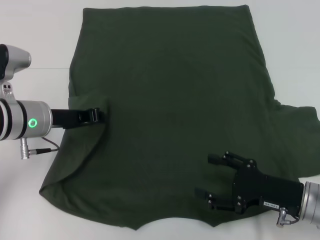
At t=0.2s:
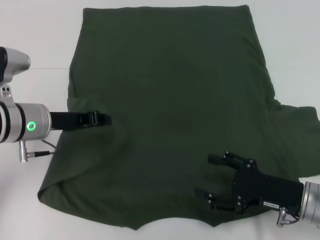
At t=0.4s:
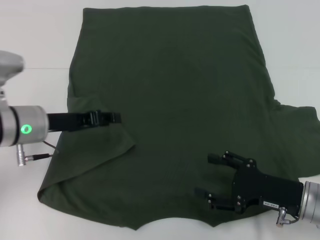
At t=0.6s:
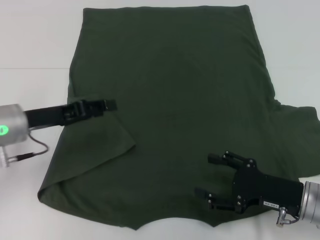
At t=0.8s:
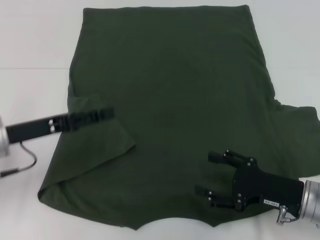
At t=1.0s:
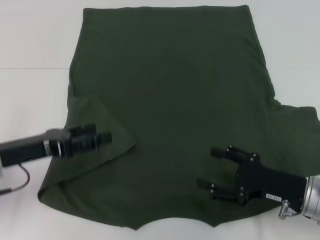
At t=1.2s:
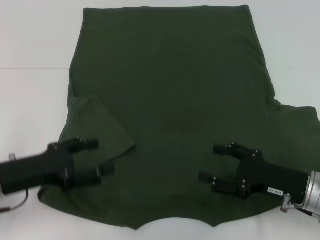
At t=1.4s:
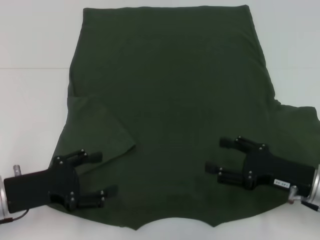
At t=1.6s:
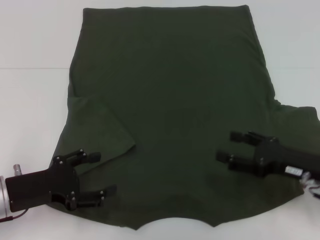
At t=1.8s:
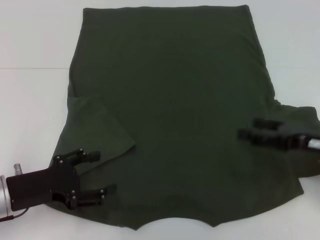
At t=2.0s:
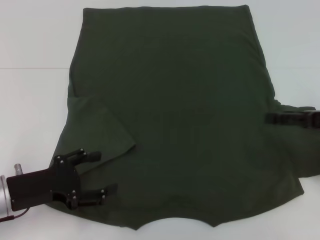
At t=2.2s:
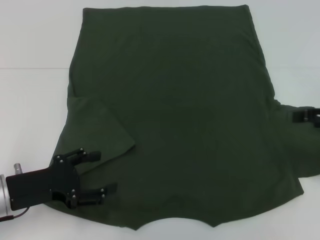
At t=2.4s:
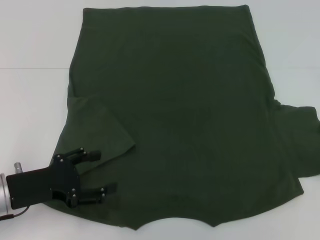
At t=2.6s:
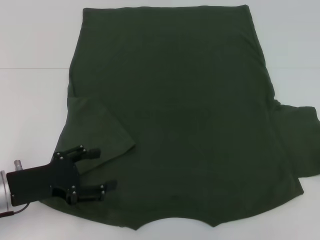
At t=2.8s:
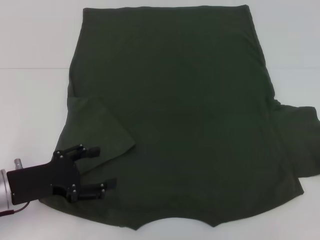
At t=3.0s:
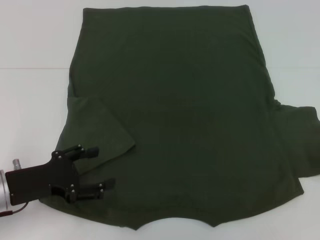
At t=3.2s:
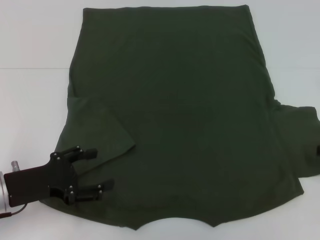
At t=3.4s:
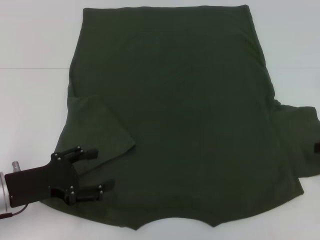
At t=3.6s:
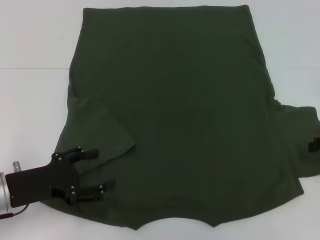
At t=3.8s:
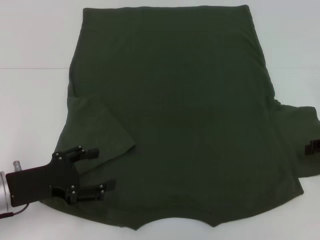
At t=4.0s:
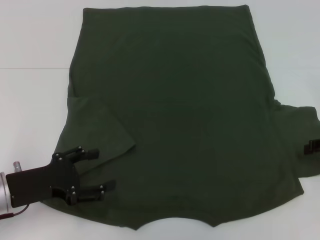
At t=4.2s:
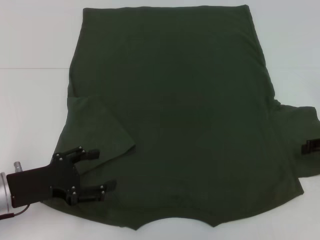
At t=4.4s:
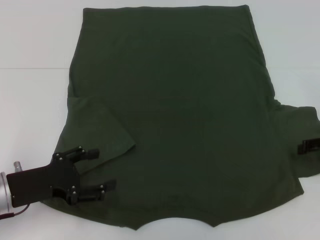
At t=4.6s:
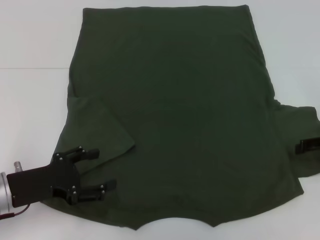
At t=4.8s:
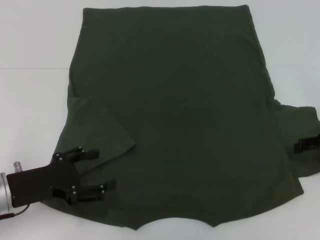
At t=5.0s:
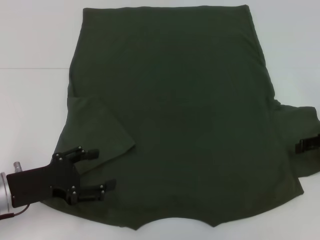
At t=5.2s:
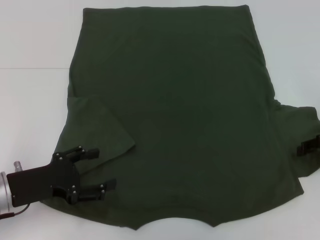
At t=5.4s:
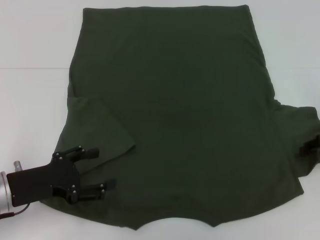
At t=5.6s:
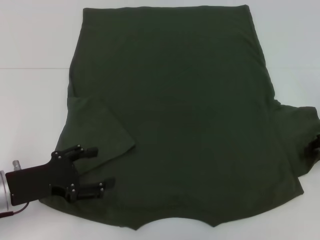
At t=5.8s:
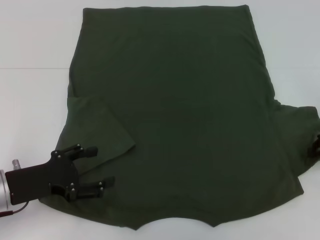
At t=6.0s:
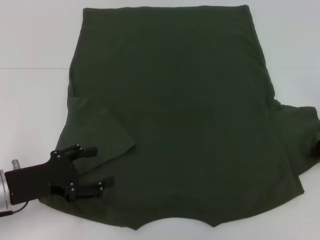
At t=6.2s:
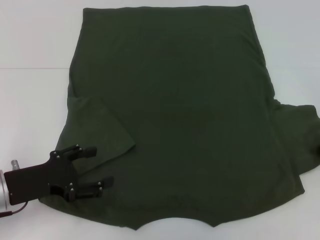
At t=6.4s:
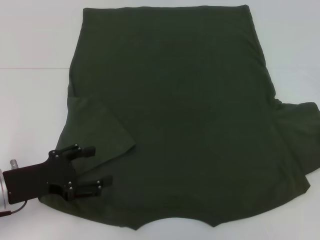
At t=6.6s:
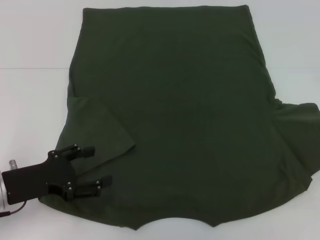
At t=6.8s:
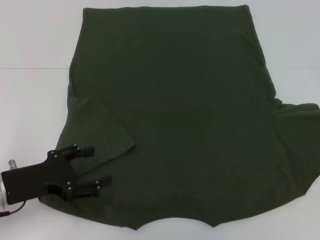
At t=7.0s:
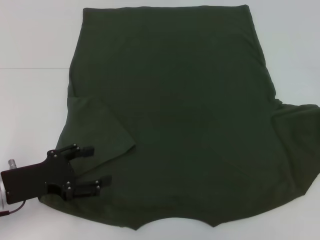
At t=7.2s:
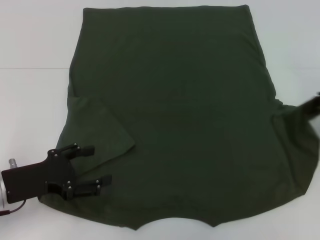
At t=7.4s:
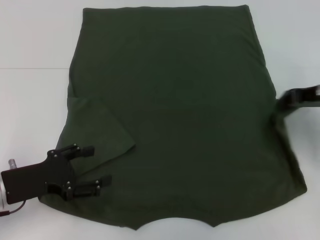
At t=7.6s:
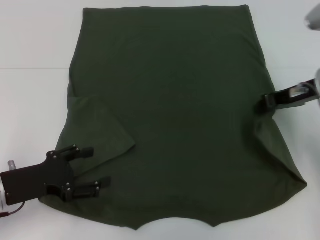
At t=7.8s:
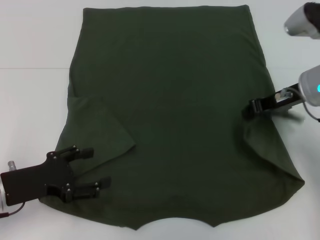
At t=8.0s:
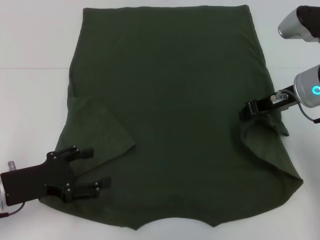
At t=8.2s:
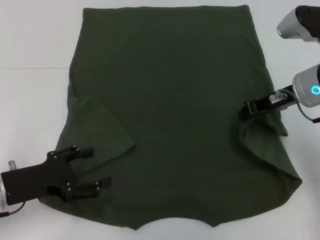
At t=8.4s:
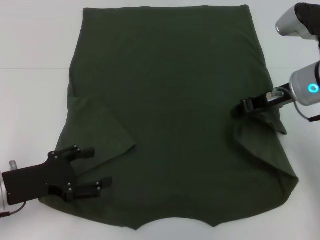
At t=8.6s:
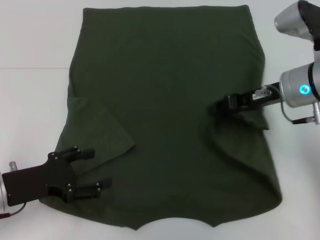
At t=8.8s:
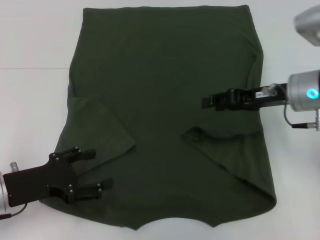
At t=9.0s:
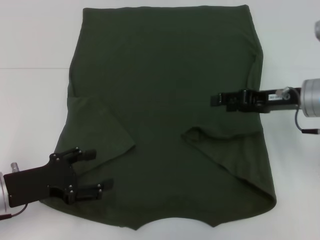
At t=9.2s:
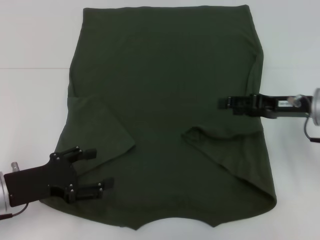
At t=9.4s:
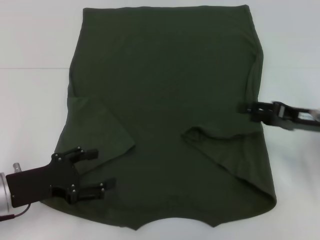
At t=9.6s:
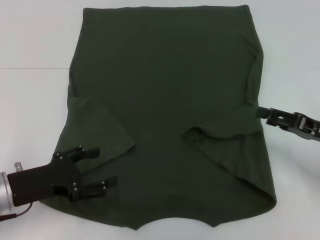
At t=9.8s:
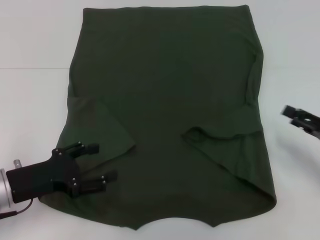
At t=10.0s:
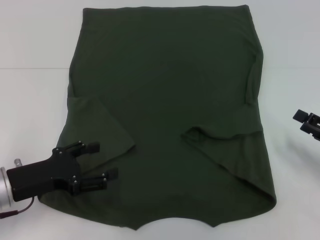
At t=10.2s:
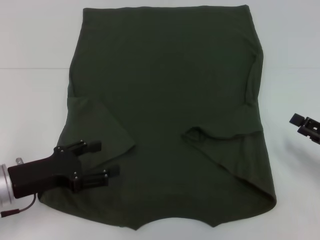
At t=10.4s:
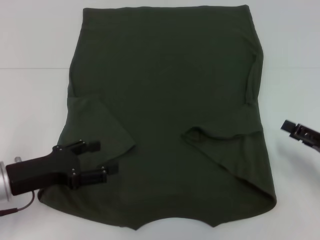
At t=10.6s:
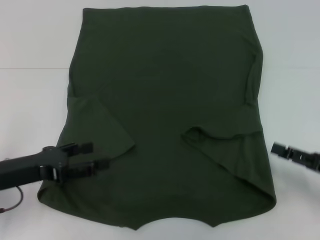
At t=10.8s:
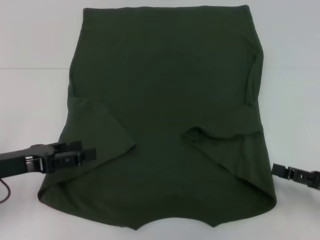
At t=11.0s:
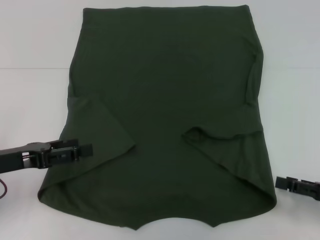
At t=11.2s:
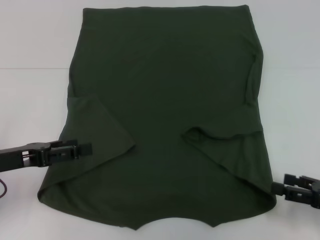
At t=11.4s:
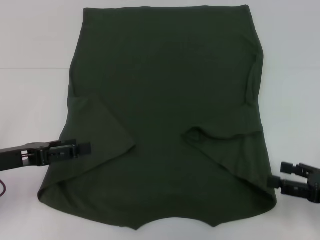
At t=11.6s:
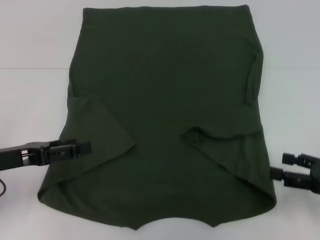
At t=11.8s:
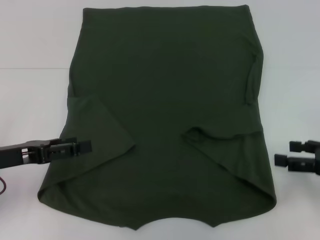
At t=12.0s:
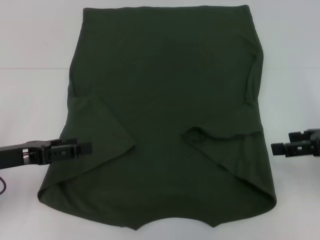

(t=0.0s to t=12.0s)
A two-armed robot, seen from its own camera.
Step, t=0.4s - t=8.8s: Fold the bottom right sleeve with your right hand.
t=0.0s - t=1.6s: The left gripper goes roughly 10 cm backward, and opens.
t=1.6s - t=3.0s: The right gripper moves to the right and upward, about 15 cm.
t=3.0s - t=4.4s: The grippers move only a little.
t=6.0s - t=7.6s: The right gripper moves to the left and upward, about 10 cm.
t=7.6s - t=9.0s: The right gripper opens up.
t=9.0s - t=10.4s: The right gripper is displaced backward, to the right and downward by roughly 15 cm.
t=10.4s - t=12.0s: The left gripper shifts by about 5 cm; the right gripper is displaced upward by roughly 10 cm.

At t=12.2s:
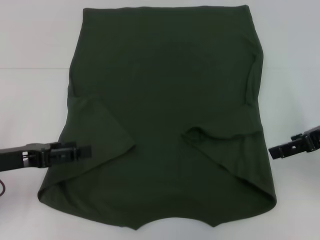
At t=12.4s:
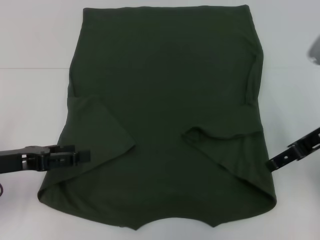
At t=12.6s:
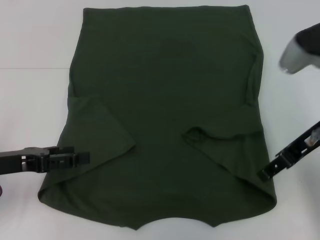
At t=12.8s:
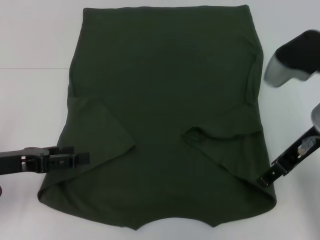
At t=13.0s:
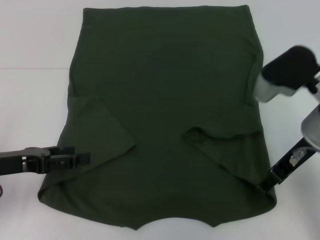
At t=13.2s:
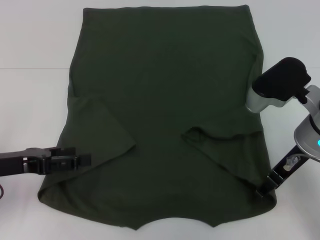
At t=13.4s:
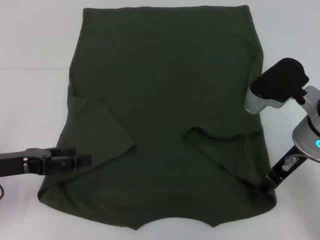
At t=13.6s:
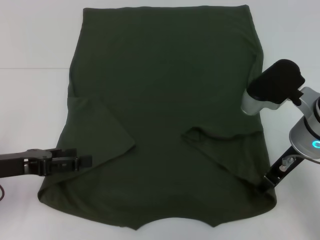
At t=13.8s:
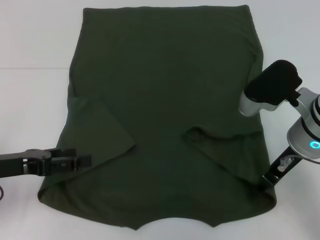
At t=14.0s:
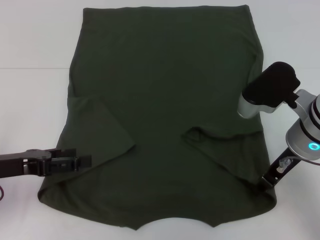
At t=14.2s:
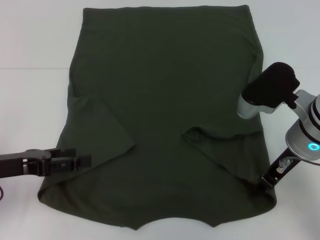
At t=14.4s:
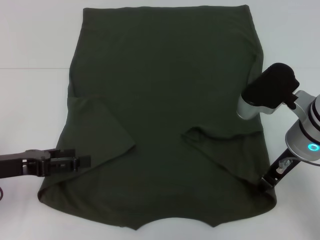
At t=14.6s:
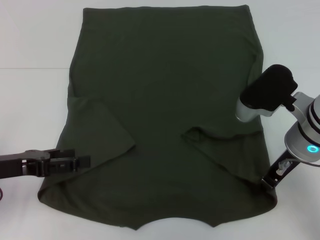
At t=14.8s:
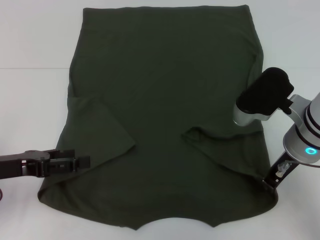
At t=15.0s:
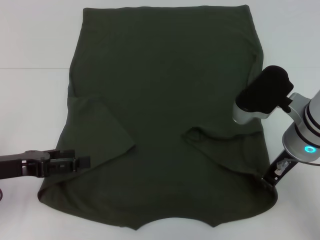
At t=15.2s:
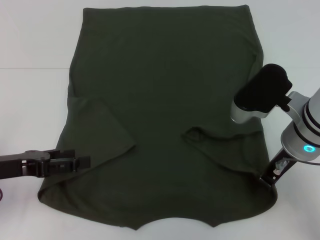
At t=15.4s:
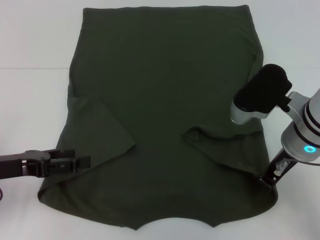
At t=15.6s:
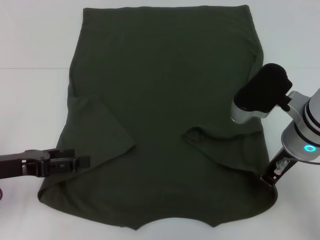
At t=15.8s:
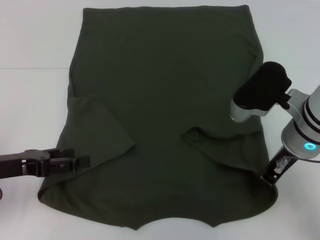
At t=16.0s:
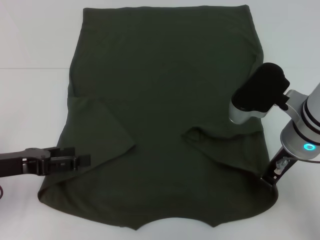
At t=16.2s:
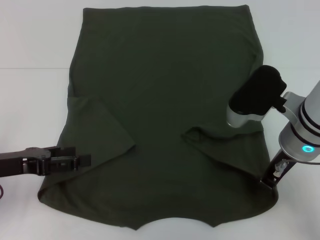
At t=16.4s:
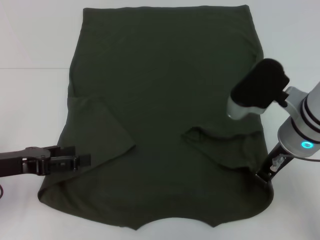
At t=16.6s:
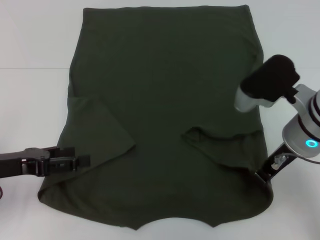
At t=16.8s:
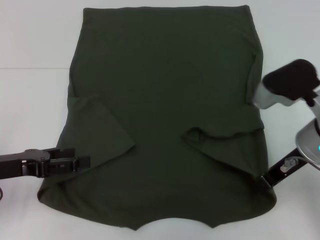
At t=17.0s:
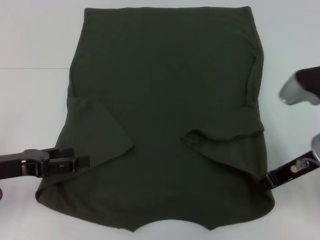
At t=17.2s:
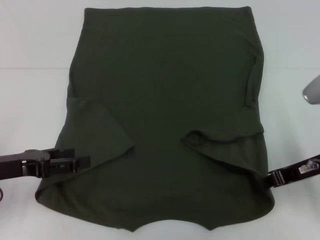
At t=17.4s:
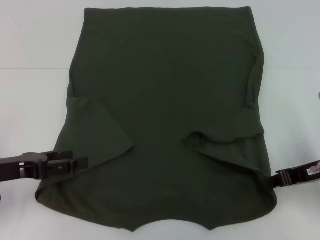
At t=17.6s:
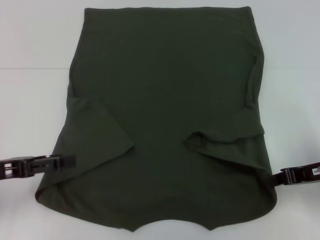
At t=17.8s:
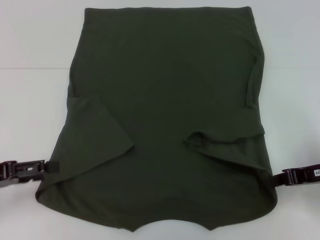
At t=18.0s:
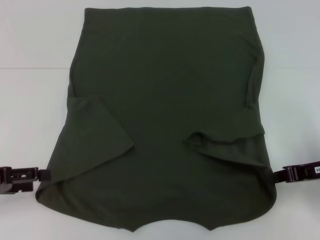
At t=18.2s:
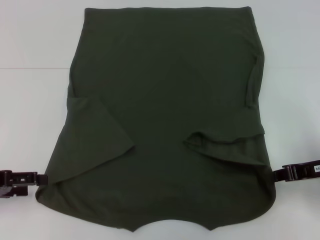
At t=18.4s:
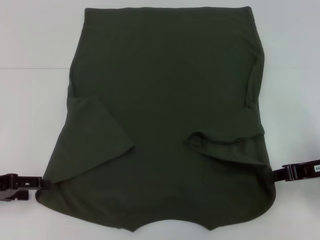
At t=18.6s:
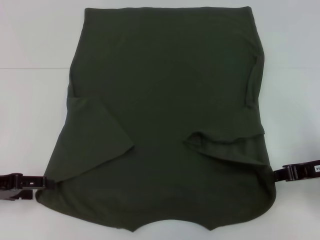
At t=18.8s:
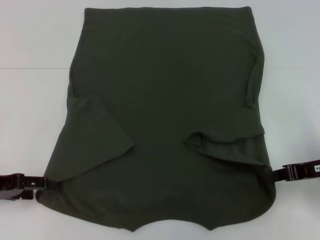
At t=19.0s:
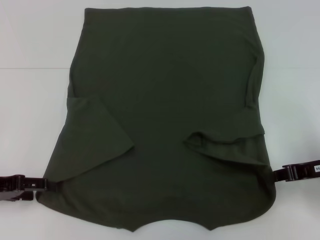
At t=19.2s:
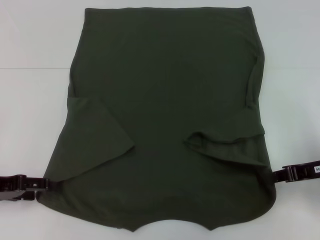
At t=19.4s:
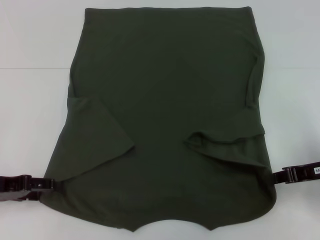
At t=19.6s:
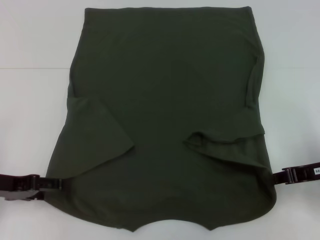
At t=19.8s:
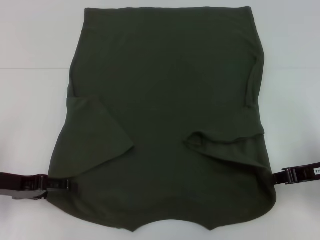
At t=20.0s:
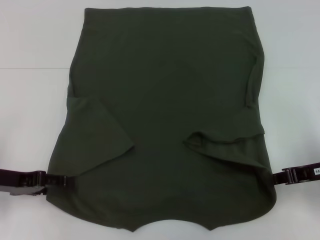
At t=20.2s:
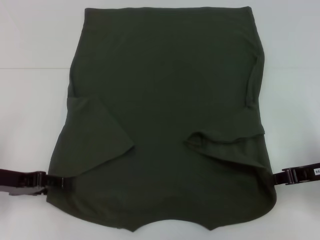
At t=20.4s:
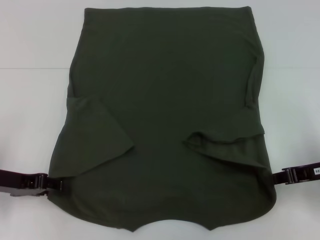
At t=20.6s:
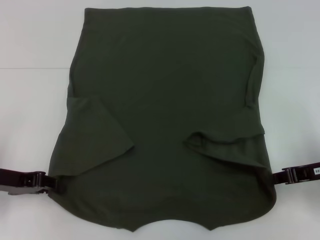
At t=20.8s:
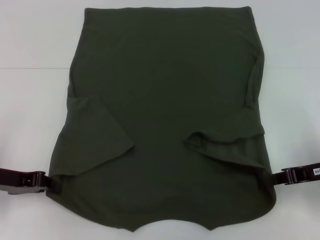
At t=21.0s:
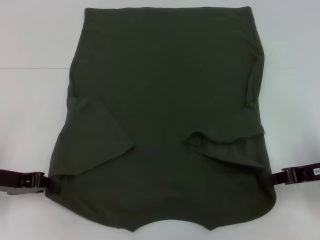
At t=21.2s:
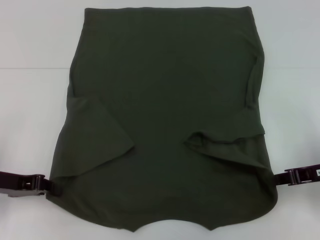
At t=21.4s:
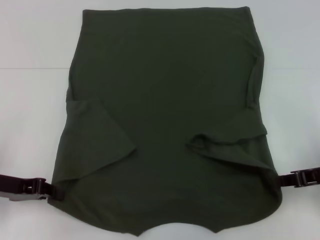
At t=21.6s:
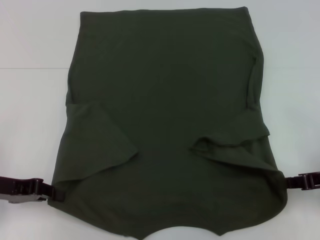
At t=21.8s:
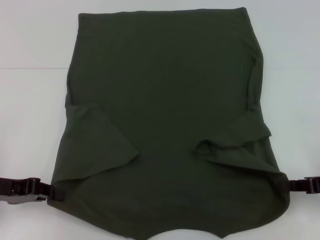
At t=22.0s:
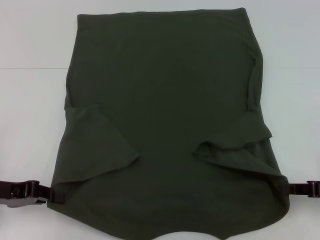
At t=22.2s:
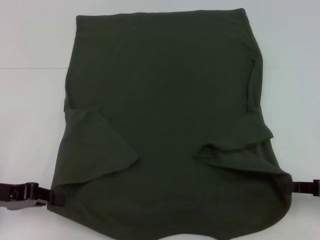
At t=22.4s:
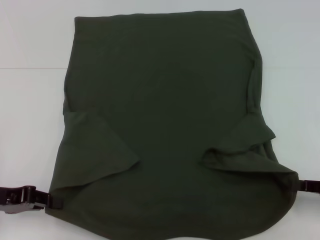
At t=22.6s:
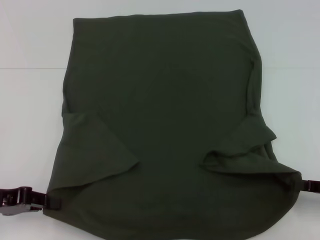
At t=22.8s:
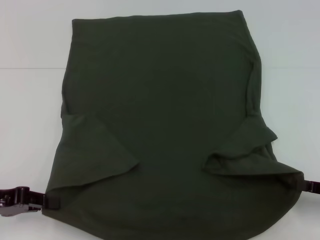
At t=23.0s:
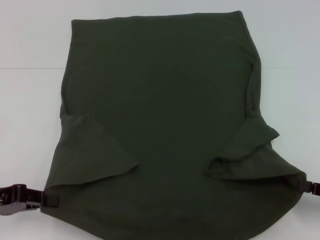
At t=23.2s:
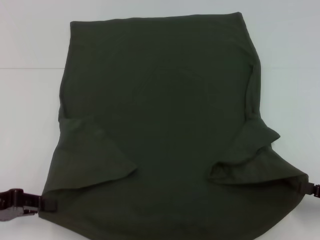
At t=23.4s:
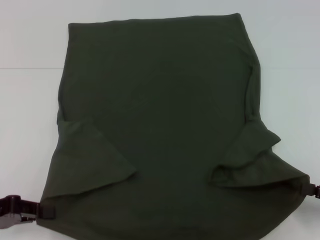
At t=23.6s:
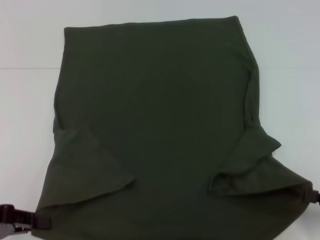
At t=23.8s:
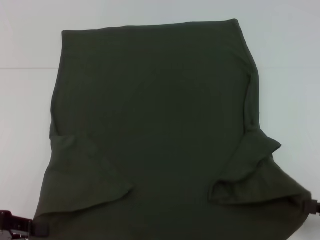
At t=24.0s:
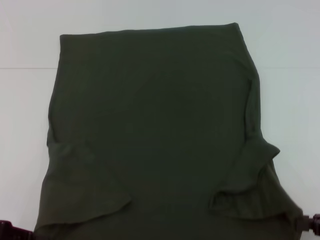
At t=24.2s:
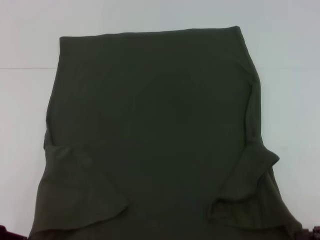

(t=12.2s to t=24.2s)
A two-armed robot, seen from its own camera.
Step, t=12.2s - t=16.8s: Grab the bottom right corner with your right hand.
Step, t=17.0s - t=21.0s: Grab the bottom left corner with your left hand.
t=12.2s - t=13.8s: The right gripper moves to the left and downward, roughly 10 cm.
t=13.8s - t=15.2s: The right gripper closes up.
t=15.2s - t=16.6s: The grippers move only a little.
t=16.6s - t=18.2s: The right gripper is displaced to the right by some 10 cm, while the left gripper travels to the left by roughly 5 cm.
t=18.2s - t=19.8s: The left gripper shifts by about 5 cm.
t=19.8s - t=21.2s: The left gripper closes up.
t=21.2s - t=22.6s: The right gripper goes some 10 cm to the right and backward.
